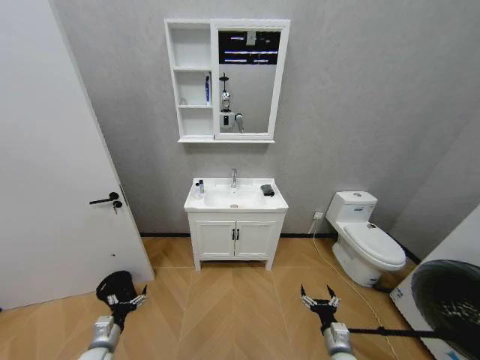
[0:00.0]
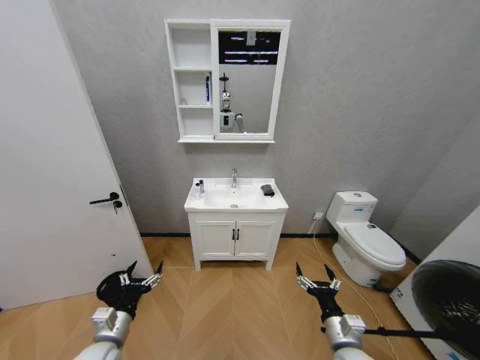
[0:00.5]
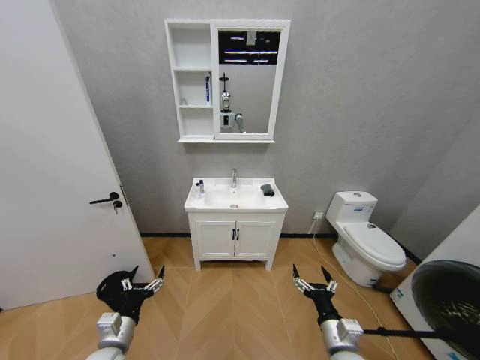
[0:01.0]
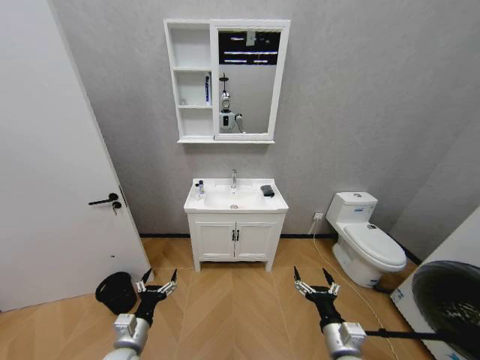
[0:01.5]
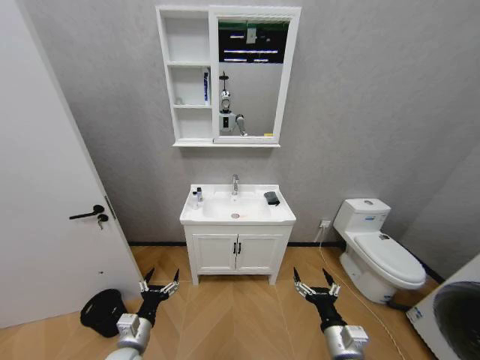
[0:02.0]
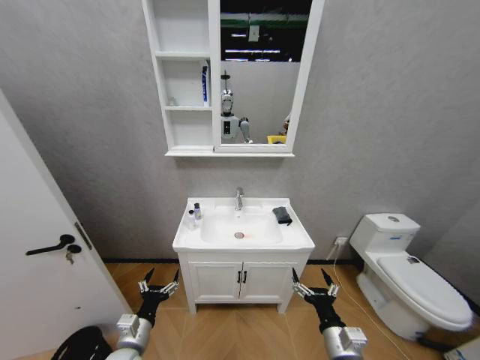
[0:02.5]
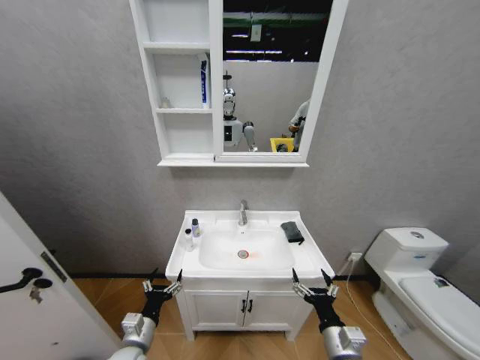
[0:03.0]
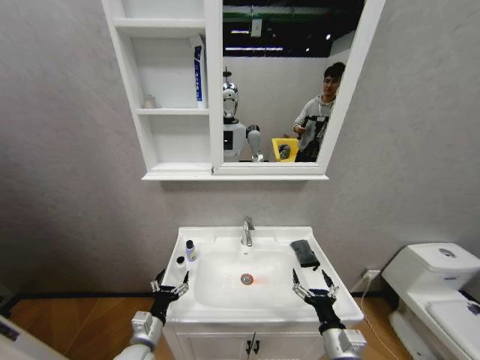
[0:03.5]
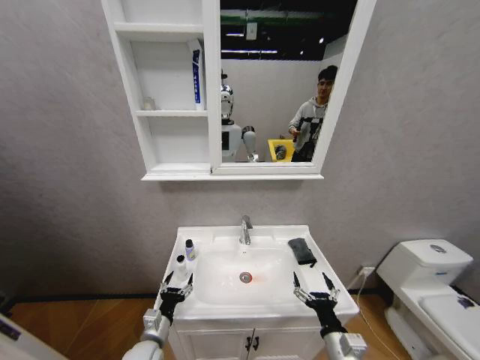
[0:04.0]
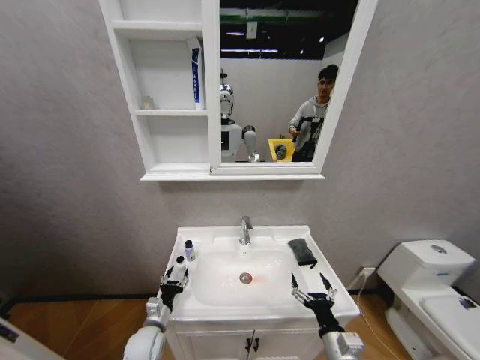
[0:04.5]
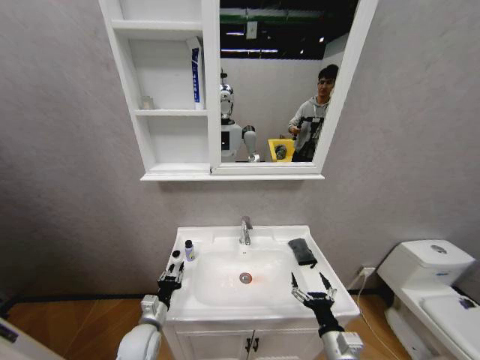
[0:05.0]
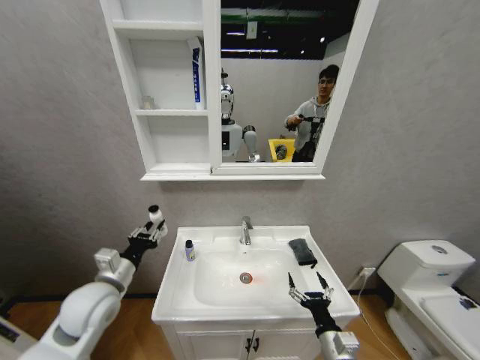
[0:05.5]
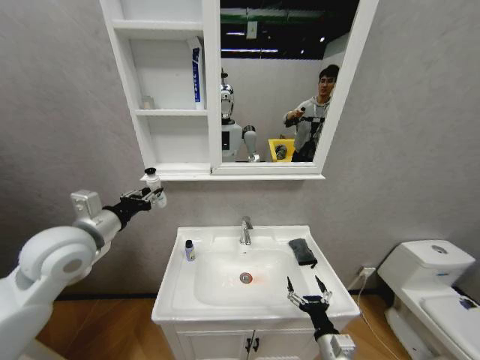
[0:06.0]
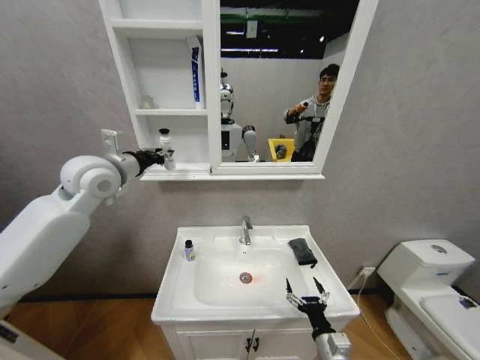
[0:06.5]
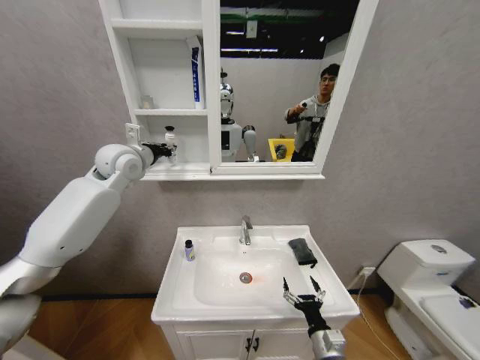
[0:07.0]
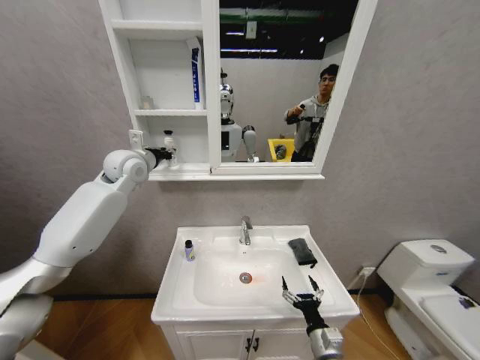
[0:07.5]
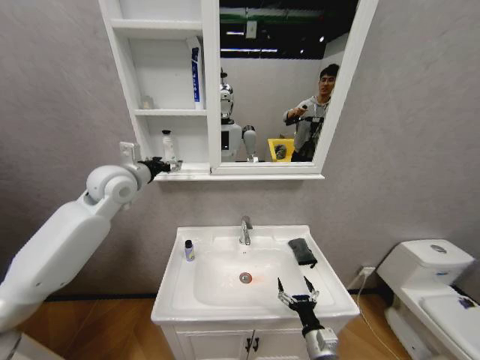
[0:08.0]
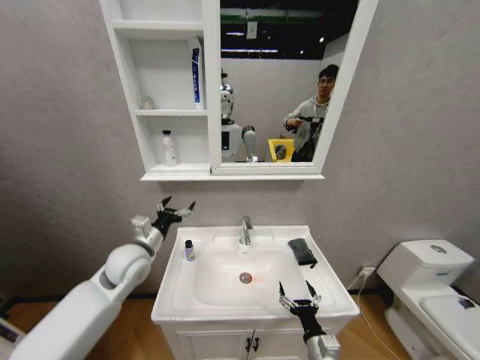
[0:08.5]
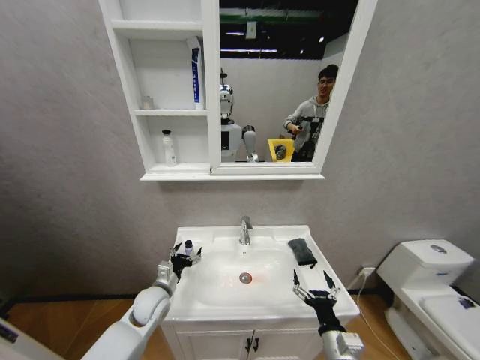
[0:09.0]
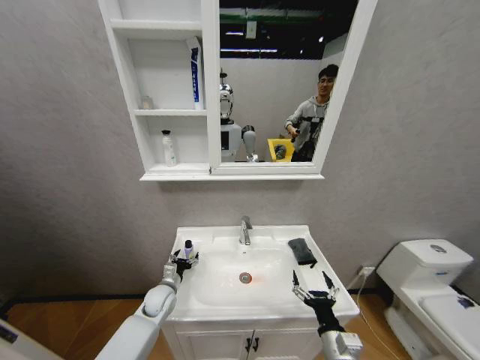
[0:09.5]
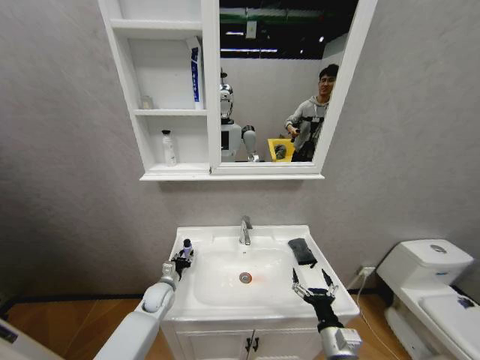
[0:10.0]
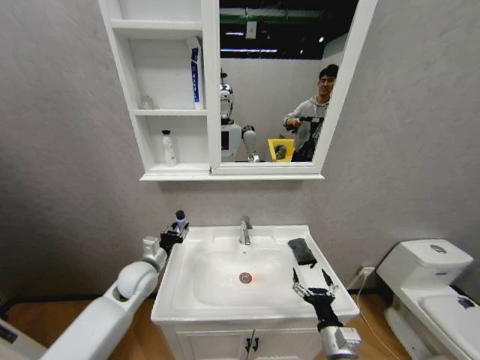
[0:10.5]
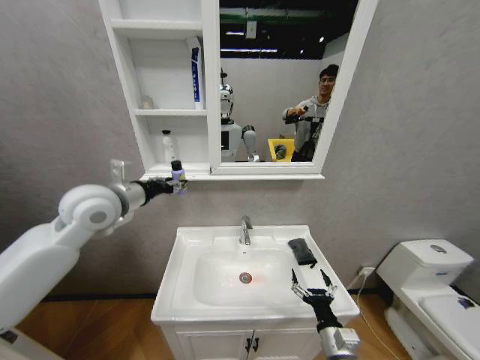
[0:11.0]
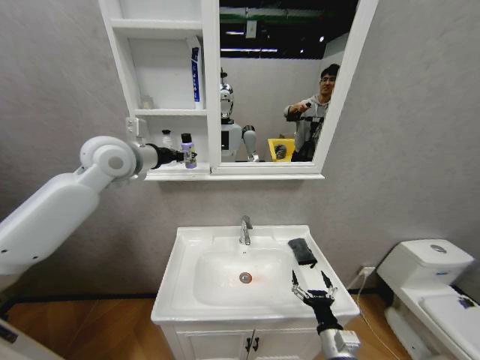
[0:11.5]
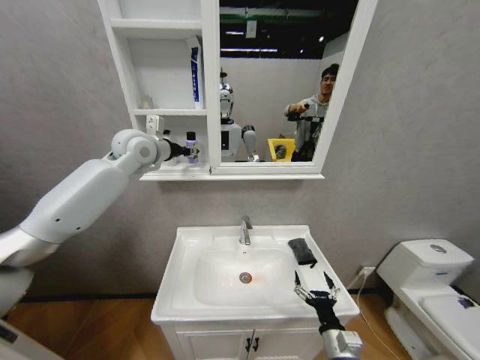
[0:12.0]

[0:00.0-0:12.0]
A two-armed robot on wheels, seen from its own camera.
Task of the whole recording: Move facial cleanser and shampoo from washbasin to cabinet, then wipe washbasin with towel.
0:02.0 to 0:04.0: The left gripper ends up some 5 cm from where it was.
0:04.0 to 0:06.0: The left gripper is displaced upward by approximately 35 cm, and closes its fingers.
0:06.0 to 0:08.0: The left gripper goes approximately 15 cm forward and upward, and opens up.
0:08.0 to 0:10.0: The left gripper heads downward, covering some 40 cm, and closes up.
0:10.0 to 0:12.0: The left gripper shifts approximately 50 cm upward.

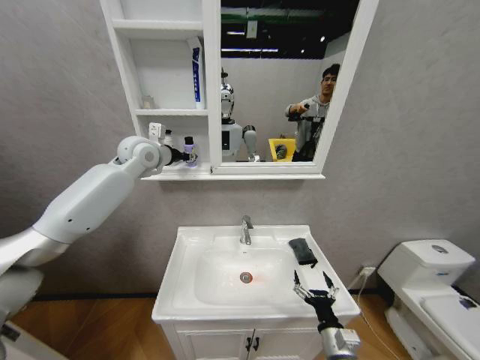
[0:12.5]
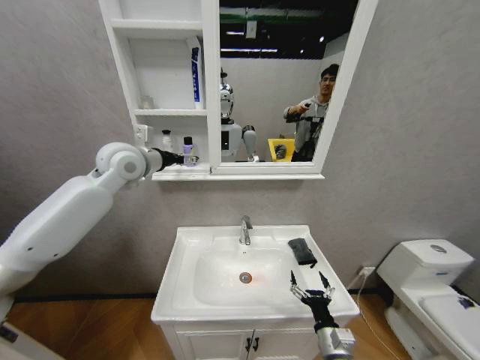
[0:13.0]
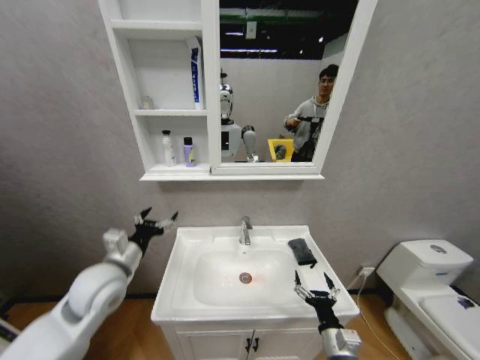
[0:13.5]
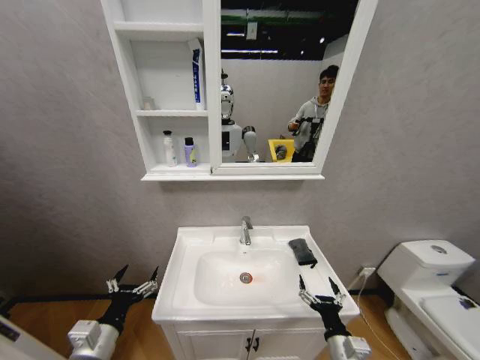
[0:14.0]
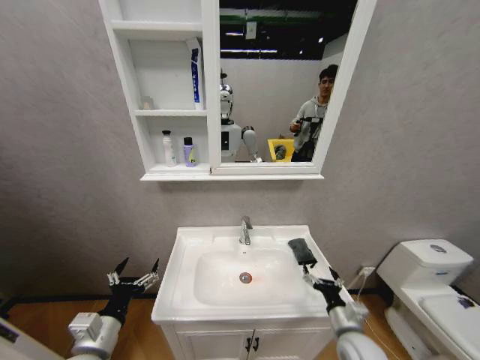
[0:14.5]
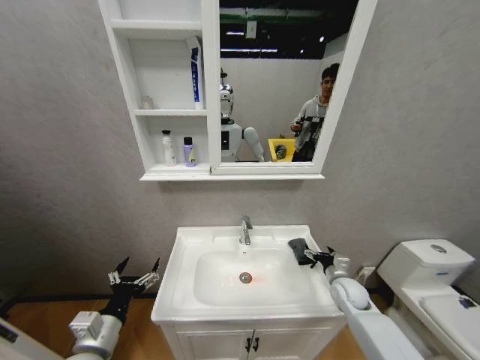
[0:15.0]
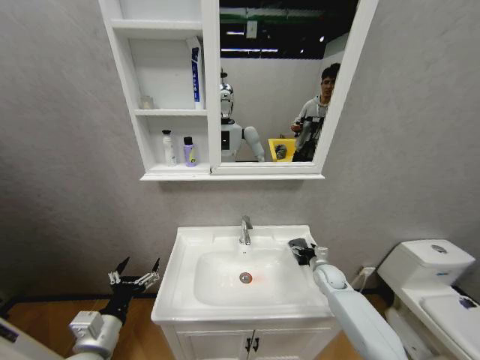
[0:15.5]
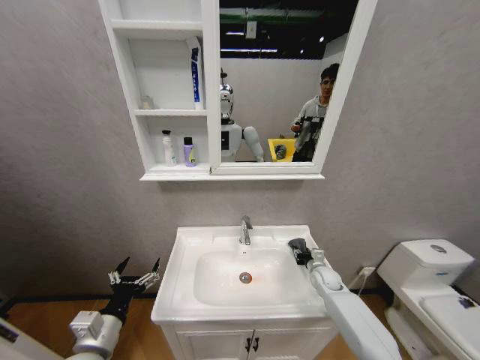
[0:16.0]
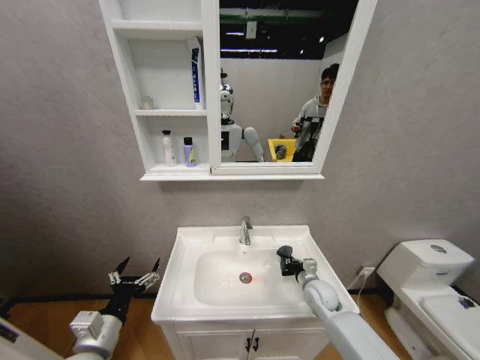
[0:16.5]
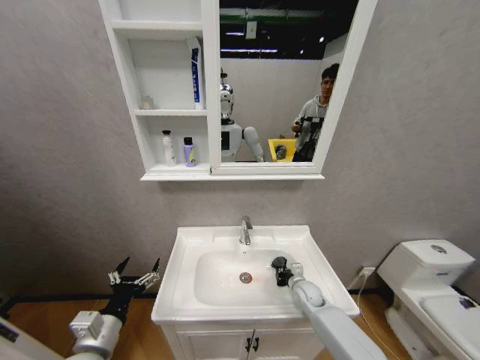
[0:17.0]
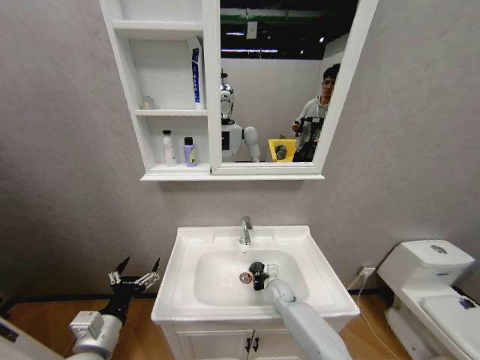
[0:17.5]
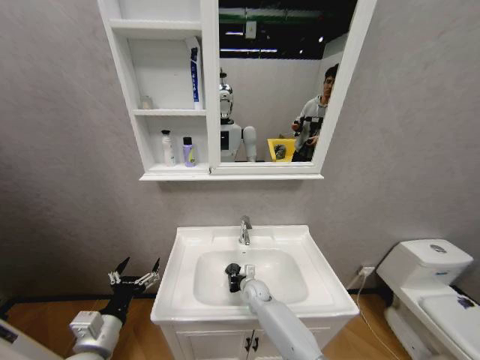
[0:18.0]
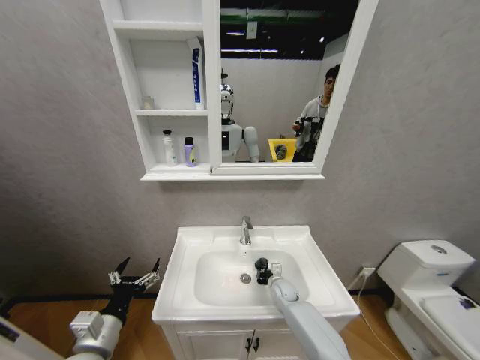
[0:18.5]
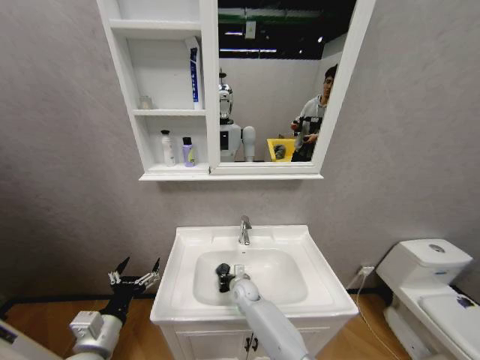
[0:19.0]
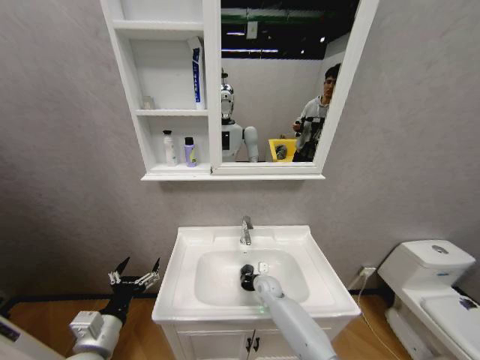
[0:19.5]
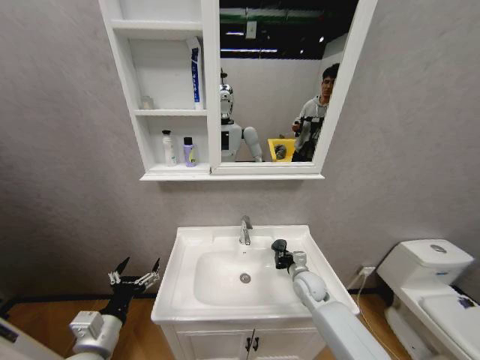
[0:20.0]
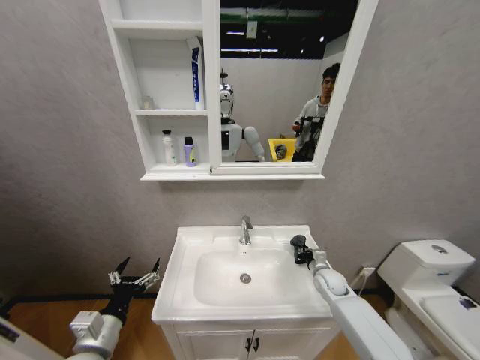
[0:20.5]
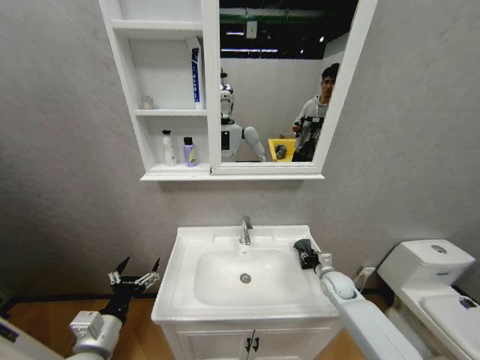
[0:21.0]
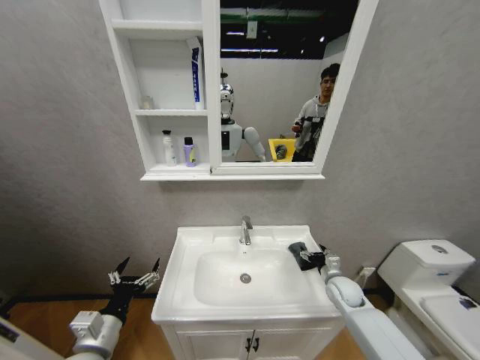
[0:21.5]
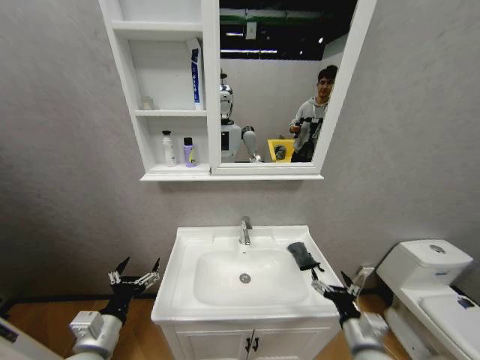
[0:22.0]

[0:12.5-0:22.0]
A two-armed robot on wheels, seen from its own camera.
Task of the whole recording: Move facial cleanser and shampoo from washbasin to cabinet, then wipe washbasin with towel.
0:12.5 to 0:14.5: The right gripper ends up some 5 cm from where it was. The left gripper heads downward and backward, covering some 50 cm, and opens its fingers.
0:14.5 to 0:16.5: The right gripper goes approximately 15 cm forward, and closes.
0:16.5 to 0:18.0: The right gripper travels to the left and downward by about 20 cm.
0:18.0 to 0:20.0: The right gripper moves left and right over about 20 cm, changing direction 2 times.
0:20.0 to 0:22.0: The right gripper is displaced backward by approximately 25 cm, and opens.

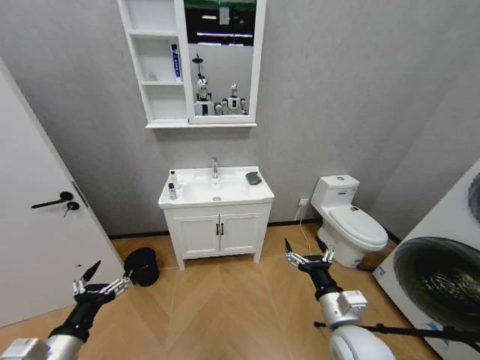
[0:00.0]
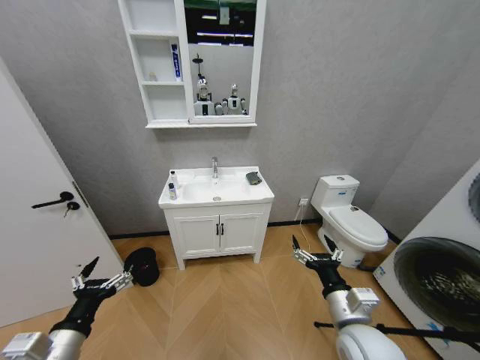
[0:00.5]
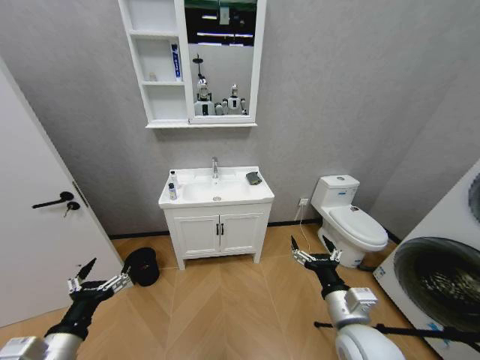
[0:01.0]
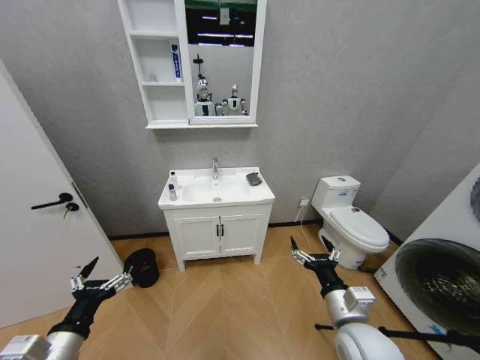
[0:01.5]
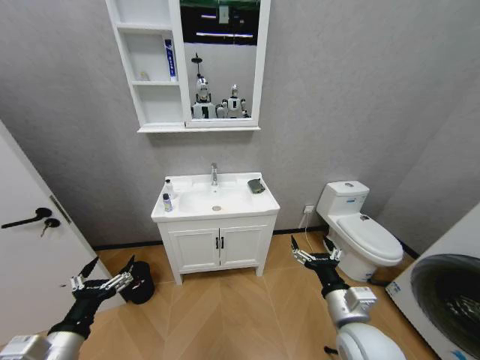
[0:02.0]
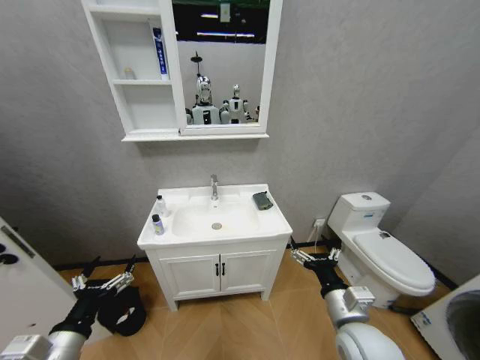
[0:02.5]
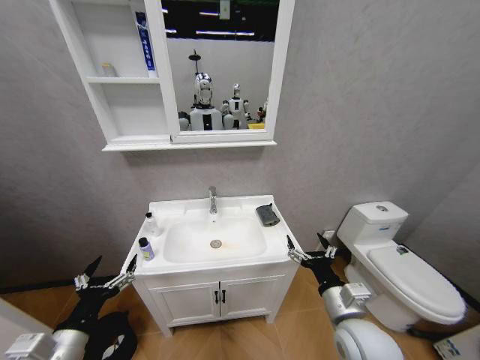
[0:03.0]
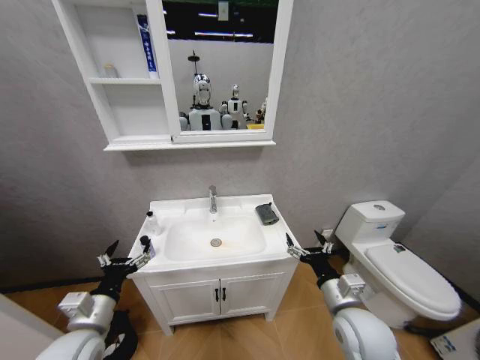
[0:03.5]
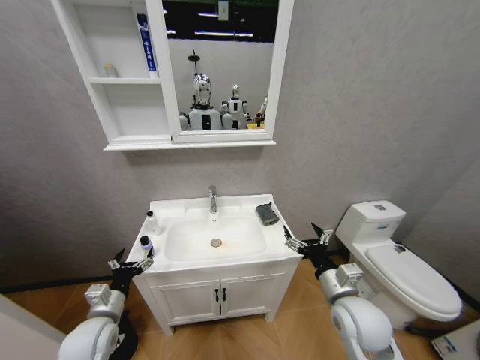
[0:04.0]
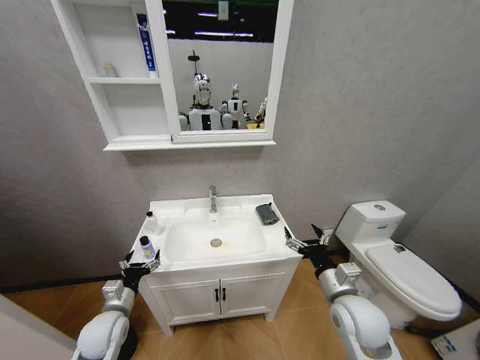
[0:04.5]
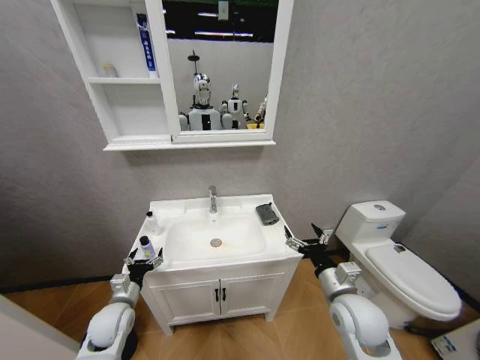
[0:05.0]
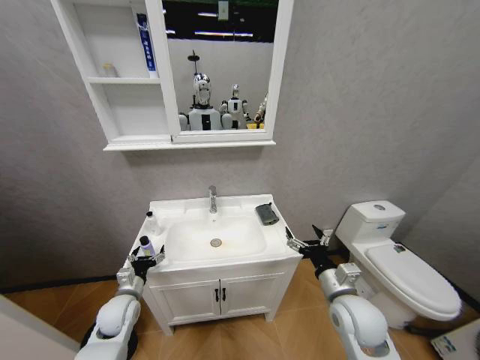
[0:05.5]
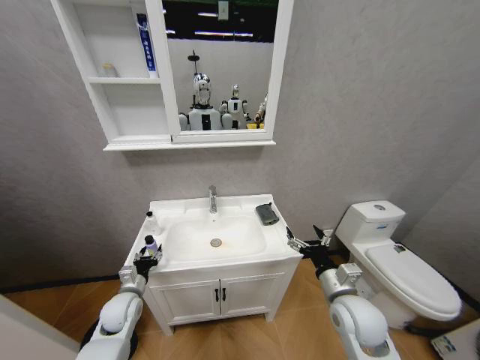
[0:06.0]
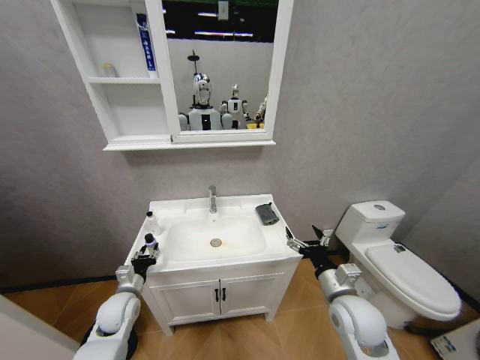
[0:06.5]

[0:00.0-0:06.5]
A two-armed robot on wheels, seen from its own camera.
Task of the whole recording: Move facial cleanser and shampoo from washbasin to cabinet, then wipe washbasin with towel.
0:02.0 to 0:04.5: The left gripper heads forward and downward, covering roughly 15 cm; the right gripper moves forward, roughly 5 cm.
0:04.5 to 0:06.5: The left gripper travels forward by roughly 5 cm, and closes its fingers.
